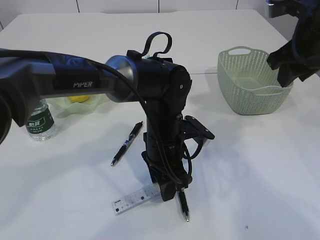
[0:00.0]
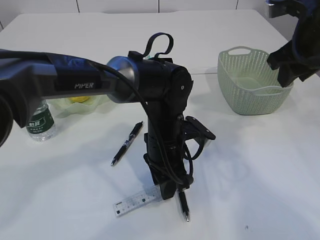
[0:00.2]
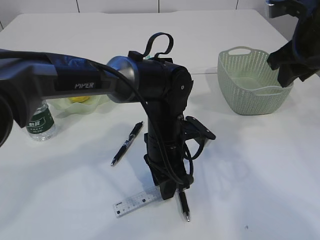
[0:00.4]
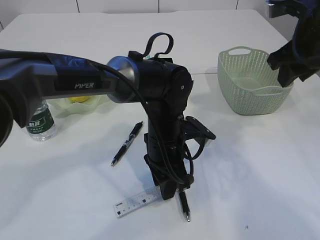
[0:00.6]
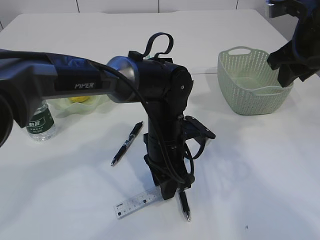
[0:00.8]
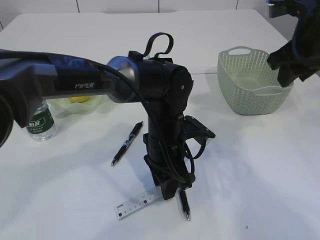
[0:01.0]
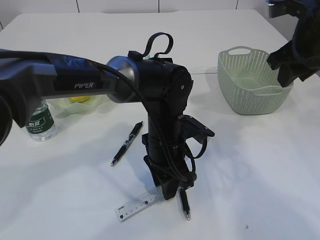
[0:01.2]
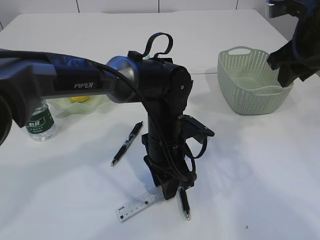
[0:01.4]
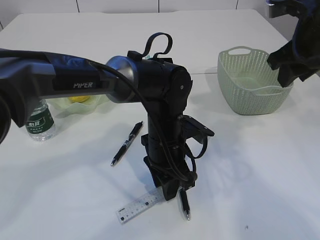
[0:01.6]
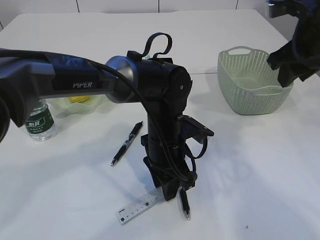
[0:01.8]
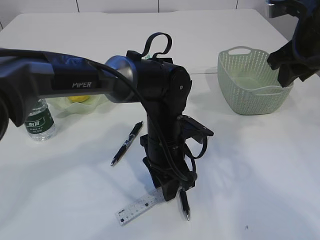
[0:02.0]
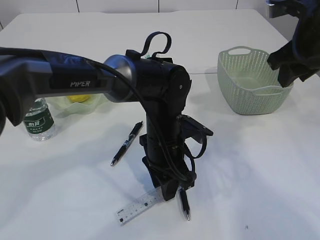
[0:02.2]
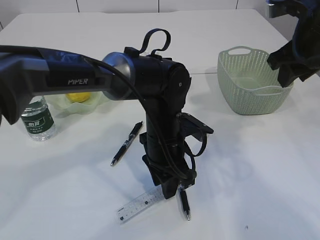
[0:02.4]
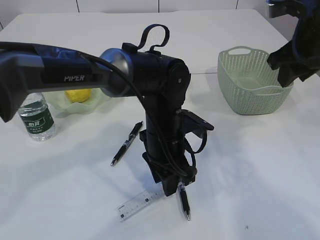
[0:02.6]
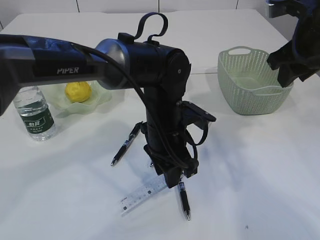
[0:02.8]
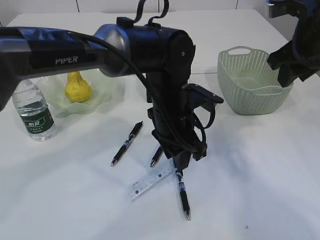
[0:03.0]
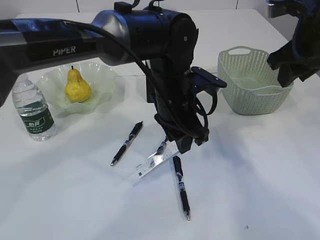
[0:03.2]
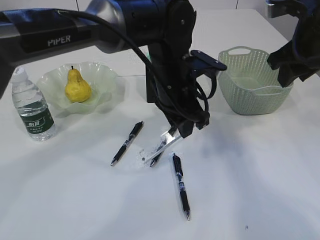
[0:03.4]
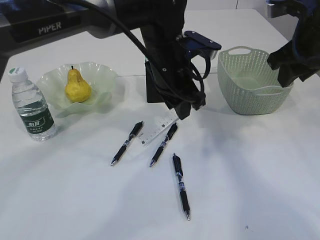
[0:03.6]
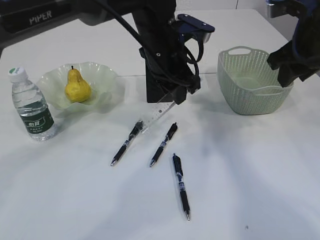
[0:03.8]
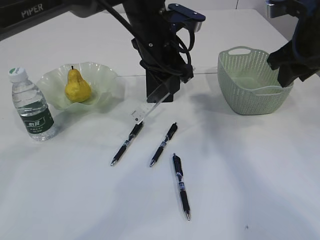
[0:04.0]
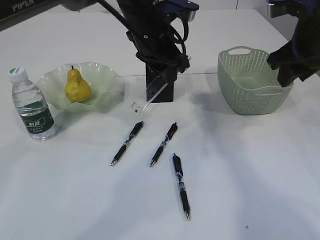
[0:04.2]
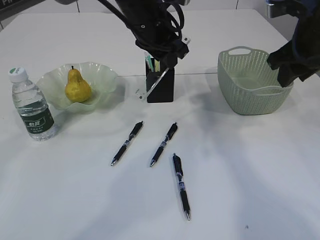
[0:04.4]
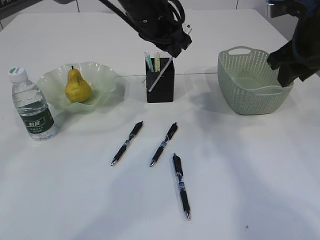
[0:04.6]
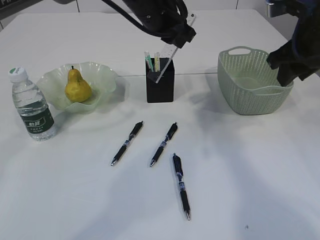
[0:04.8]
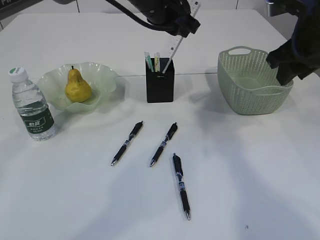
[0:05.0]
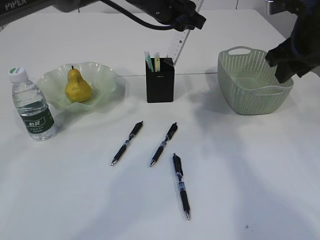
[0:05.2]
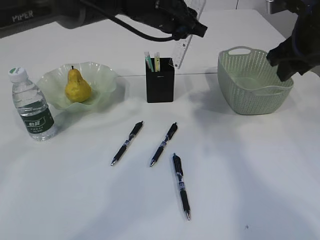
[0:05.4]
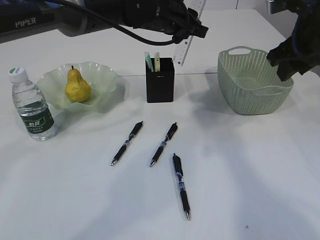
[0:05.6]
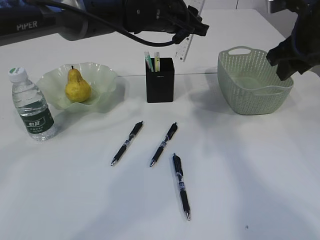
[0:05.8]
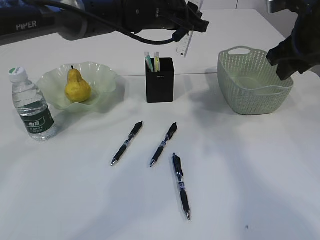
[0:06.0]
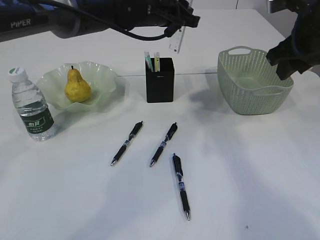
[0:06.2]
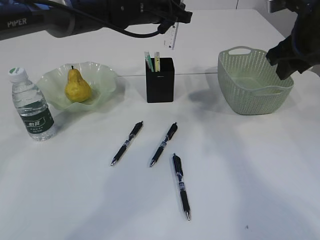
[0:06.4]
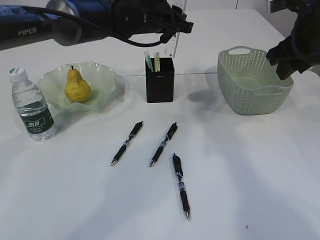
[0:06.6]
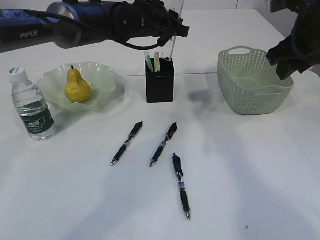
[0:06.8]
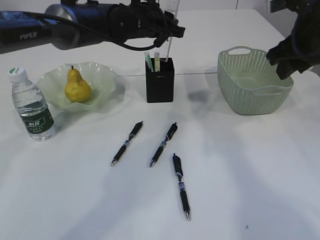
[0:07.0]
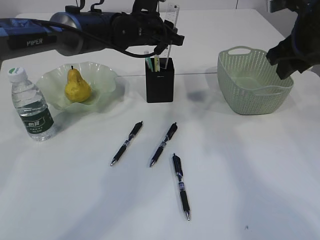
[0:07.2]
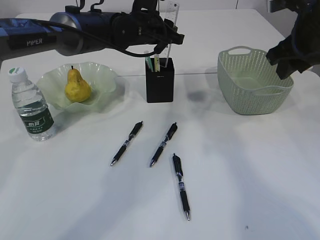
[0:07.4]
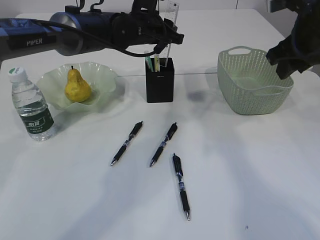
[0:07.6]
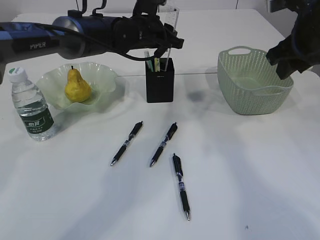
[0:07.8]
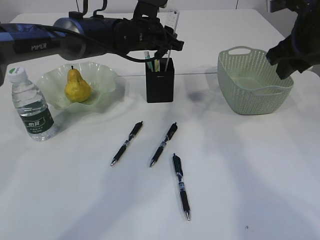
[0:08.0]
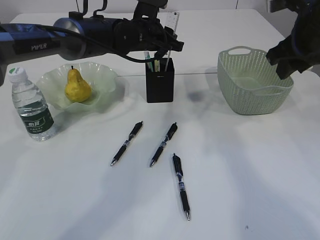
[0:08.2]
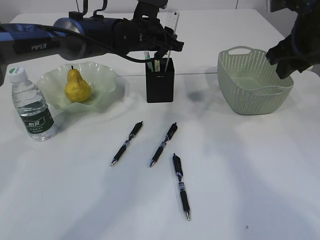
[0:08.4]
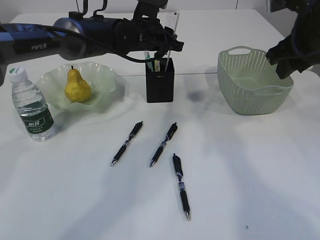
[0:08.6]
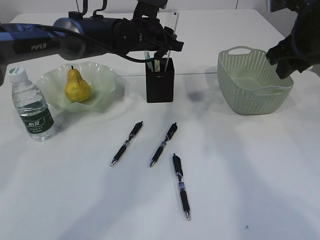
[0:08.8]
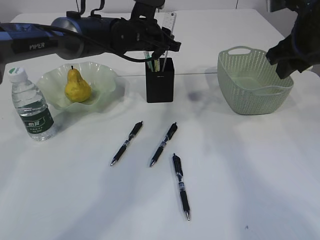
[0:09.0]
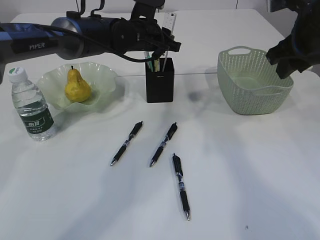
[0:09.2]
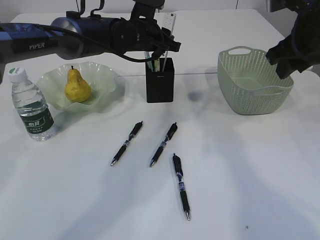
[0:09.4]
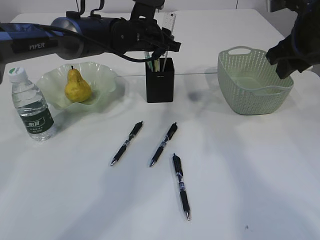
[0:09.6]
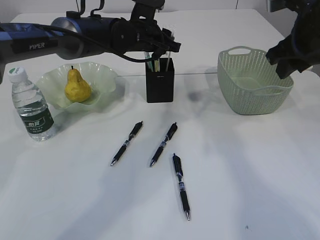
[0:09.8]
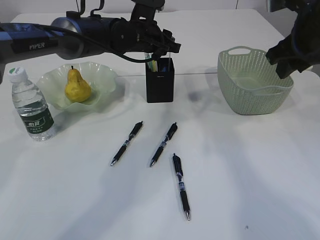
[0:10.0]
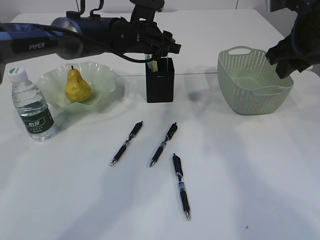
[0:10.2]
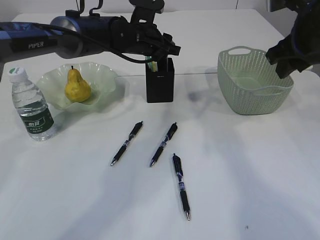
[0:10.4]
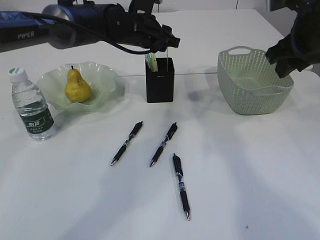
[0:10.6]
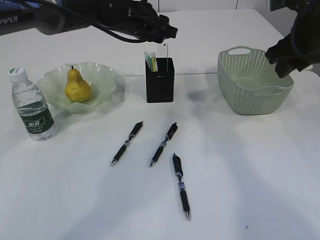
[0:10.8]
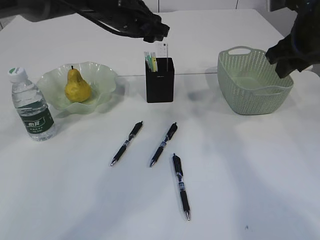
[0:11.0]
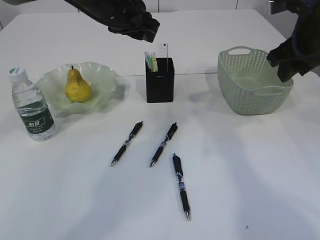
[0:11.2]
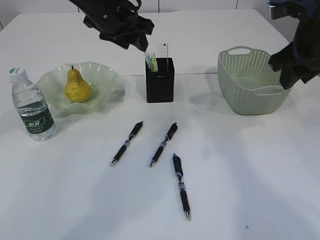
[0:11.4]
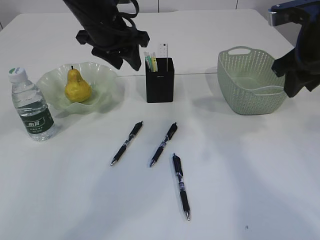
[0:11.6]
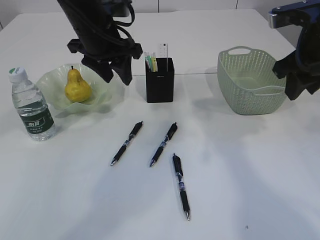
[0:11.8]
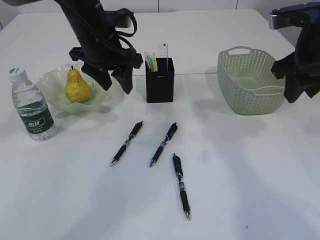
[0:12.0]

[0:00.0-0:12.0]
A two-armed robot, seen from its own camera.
Step, 0:00.0 to 0:03.2: pick up the ruler.
Step, 0:03.4 to 0:11.2: Place the ruler into the pen holder.
0:00.0 to 0:01.6: There are only small adjustments of the grippers.
0:01.6 to 0:03.0: The left gripper is displaced upward by roughly 5 cm.
0:03.0 to 0:04.4: The left gripper moves upward and forward, about 15 cm.
0:06.0 to 0:07.6: The left gripper changes place by approximately 5 cm.
0:07.6 to 0:10.4: There are only small adjustments of the grippers.
0:10.4 to 0:12.0: The left gripper heads backward and to the left, covering approximately 10 cm.

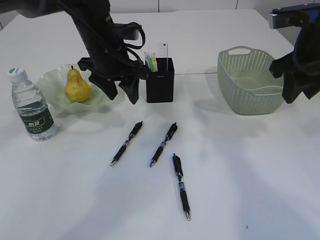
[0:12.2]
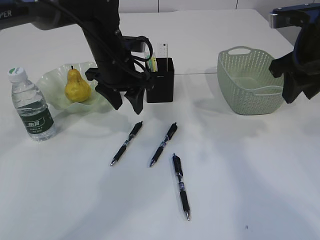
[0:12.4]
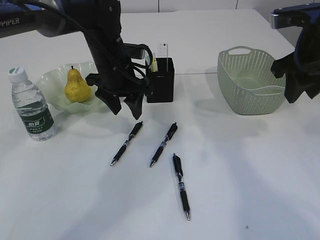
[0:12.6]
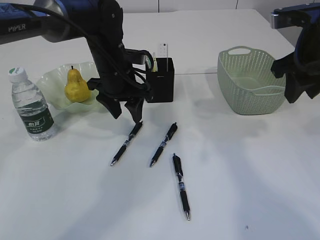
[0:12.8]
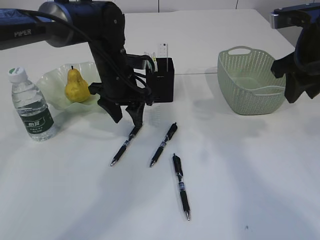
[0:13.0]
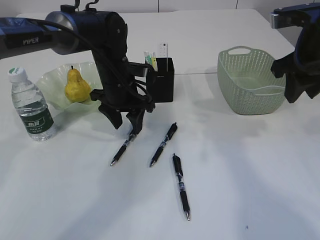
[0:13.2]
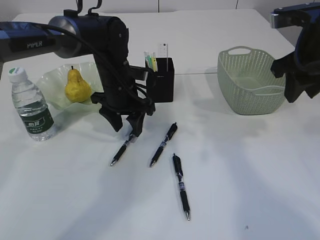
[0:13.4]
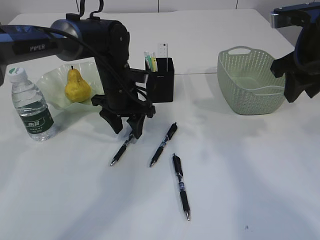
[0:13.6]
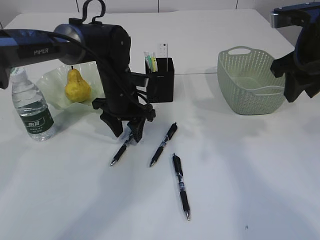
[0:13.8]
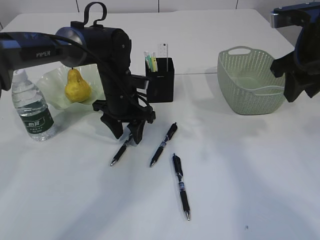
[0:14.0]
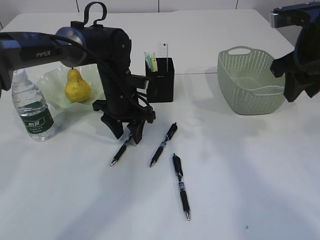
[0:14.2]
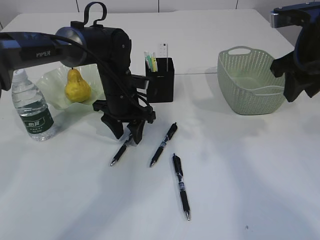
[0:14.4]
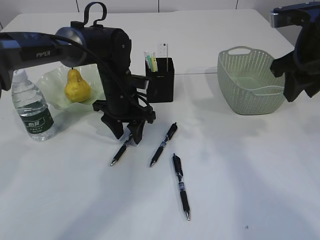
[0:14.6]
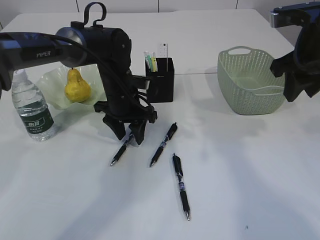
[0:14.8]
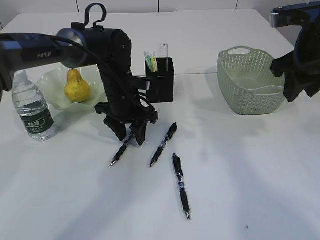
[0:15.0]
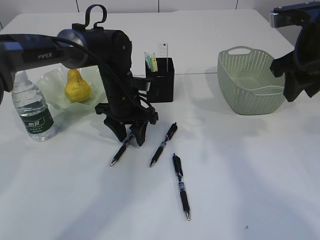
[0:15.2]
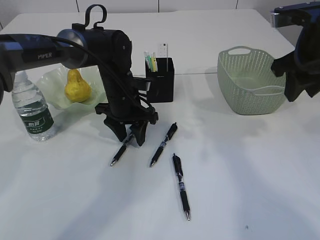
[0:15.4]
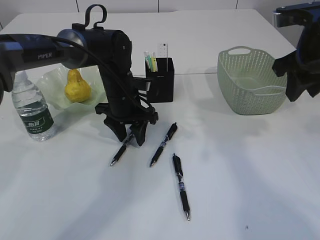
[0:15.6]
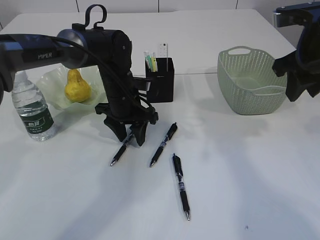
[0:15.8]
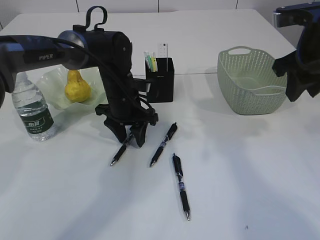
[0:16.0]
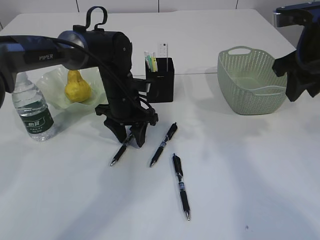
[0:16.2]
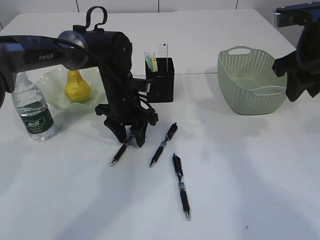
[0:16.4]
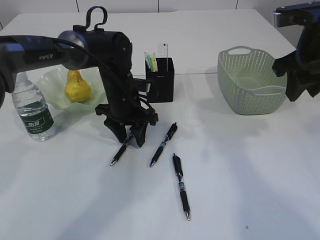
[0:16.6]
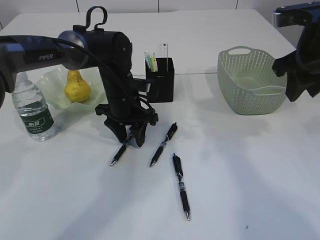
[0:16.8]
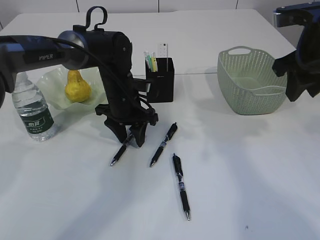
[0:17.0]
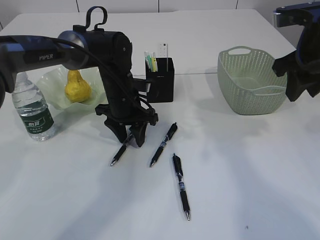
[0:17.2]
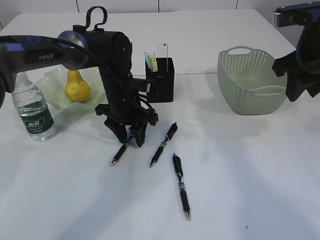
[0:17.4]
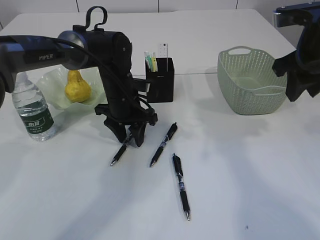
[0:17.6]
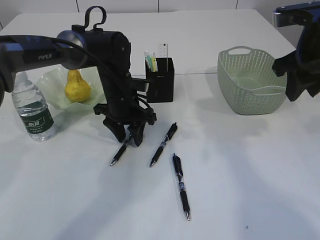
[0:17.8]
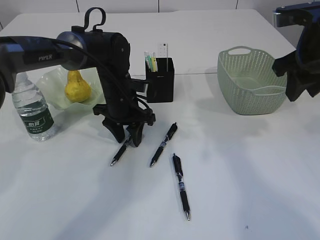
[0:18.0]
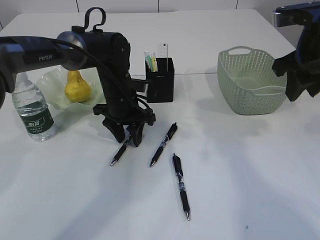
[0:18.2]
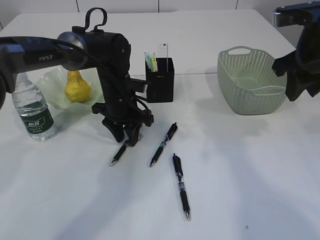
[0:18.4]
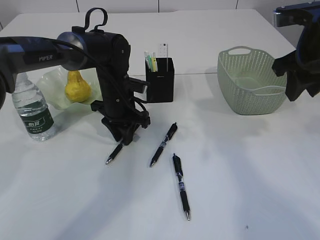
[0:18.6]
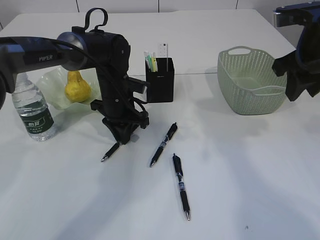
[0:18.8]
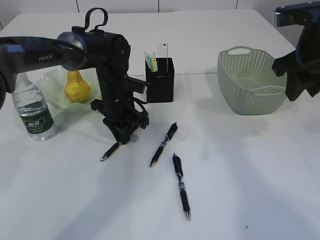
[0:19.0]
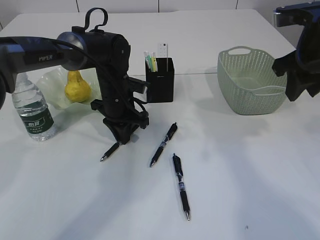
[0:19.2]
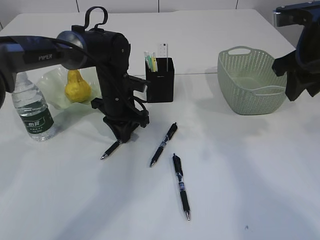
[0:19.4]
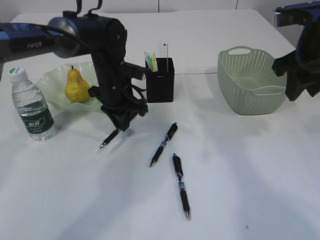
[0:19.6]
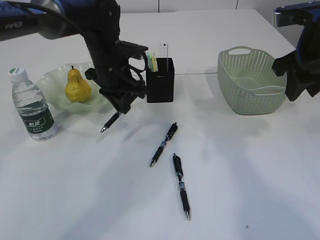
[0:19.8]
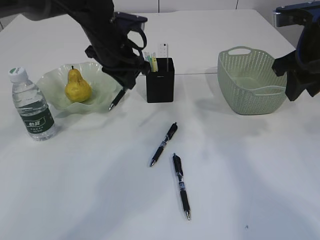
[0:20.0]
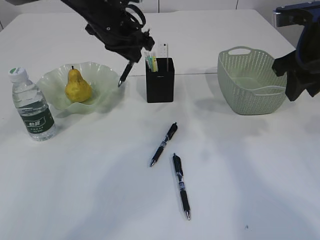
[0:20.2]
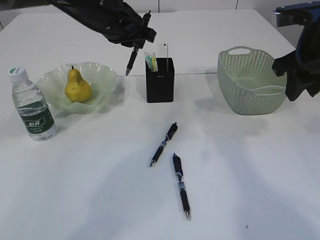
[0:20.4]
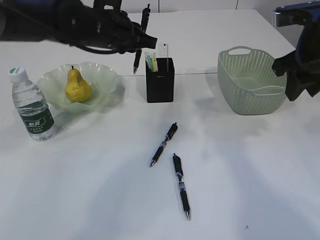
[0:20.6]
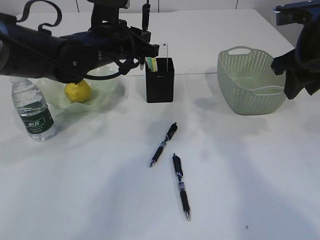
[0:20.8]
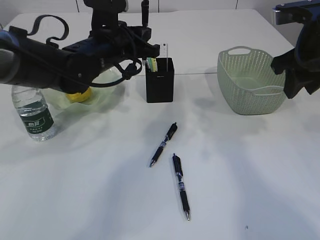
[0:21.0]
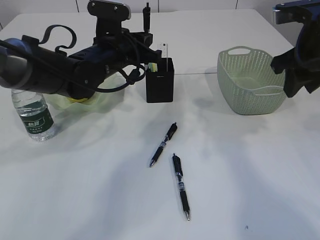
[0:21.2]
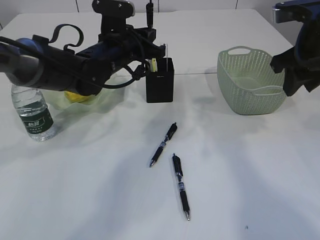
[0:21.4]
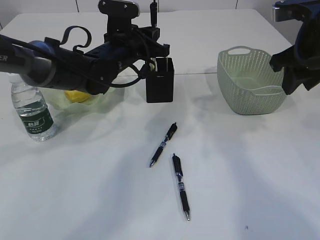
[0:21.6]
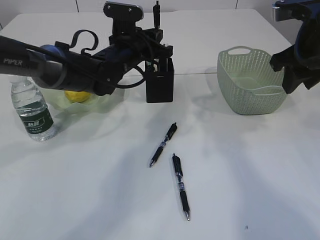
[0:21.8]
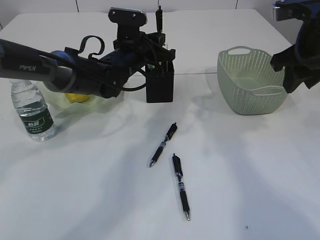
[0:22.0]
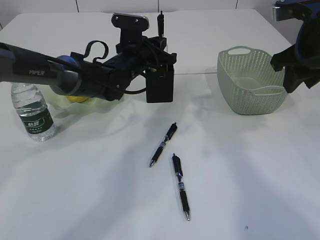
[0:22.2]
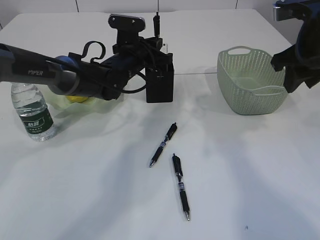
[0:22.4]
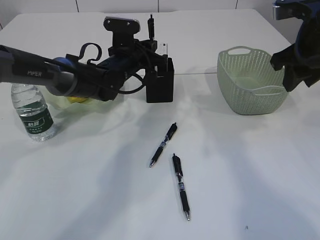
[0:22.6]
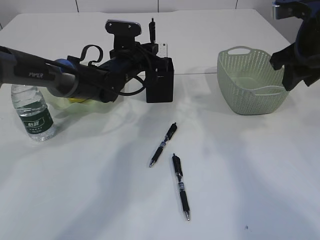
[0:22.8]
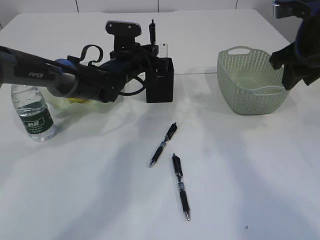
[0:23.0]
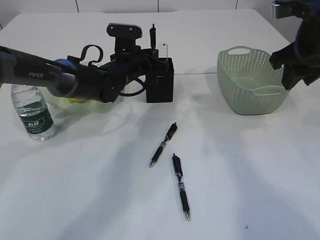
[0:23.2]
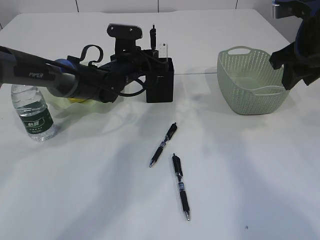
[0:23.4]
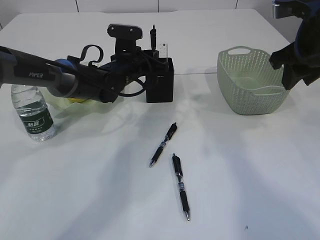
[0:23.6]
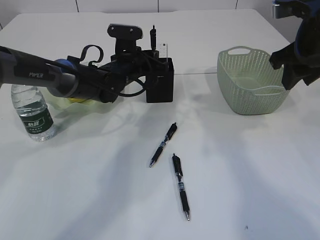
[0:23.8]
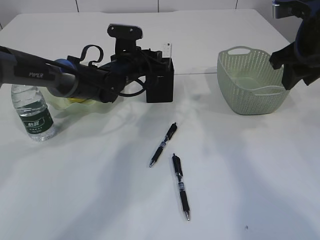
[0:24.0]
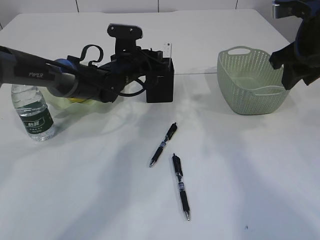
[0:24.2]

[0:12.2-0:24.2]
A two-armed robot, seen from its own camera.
Step, 0:12.2 to 0:19.8: Pick up the pen with left arm.
0:12.2 to 0:13.8: The left gripper moves downward, approximately 10 cm.
0:13.8 to 0:15.2: Both grippers stay about where they are.
0:15.2 to 0:18.2: Neither gripper changes place.
0:18.2 to 0:19.8: The left gripper shifts some 5 cm upward, and closes up.
0:19.8 to 0:21.2: The left gripper reaches approximately 10 cm upward, then returns.
0:21.2 to 0:22.6: The left gripper is displaced forward and downward by approximately 10 cm.
0:22.6 to 0:24.2: The left gripper opens.
